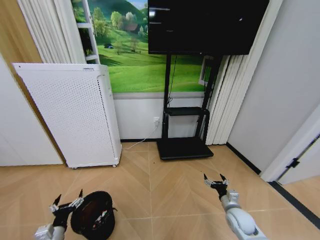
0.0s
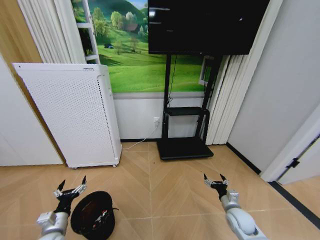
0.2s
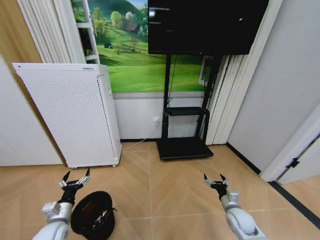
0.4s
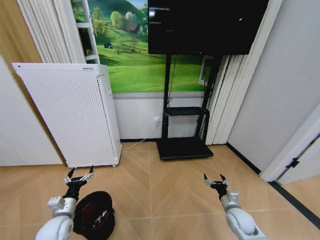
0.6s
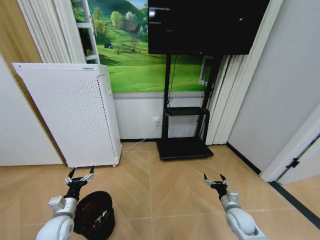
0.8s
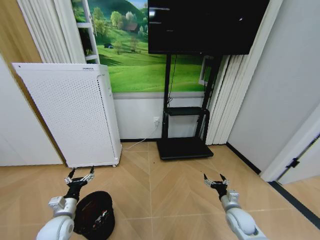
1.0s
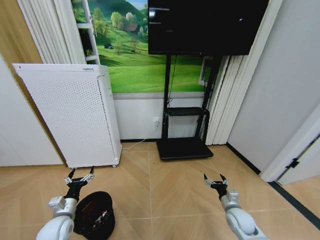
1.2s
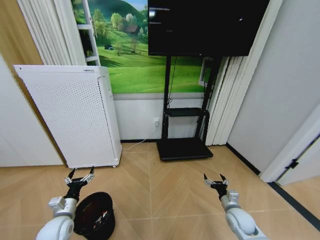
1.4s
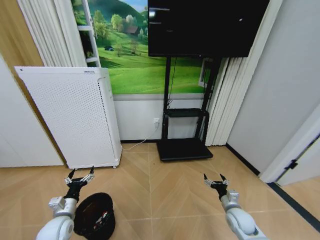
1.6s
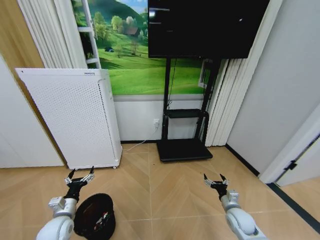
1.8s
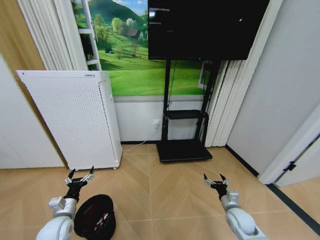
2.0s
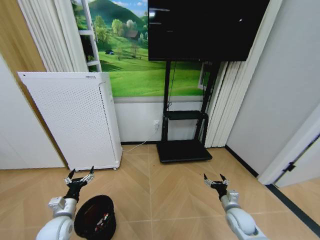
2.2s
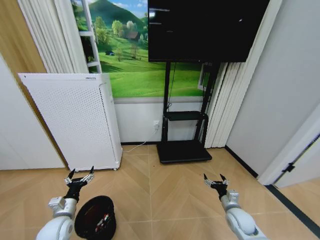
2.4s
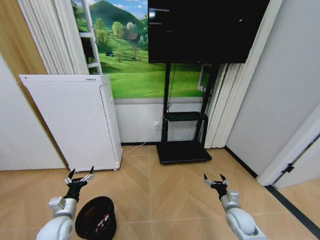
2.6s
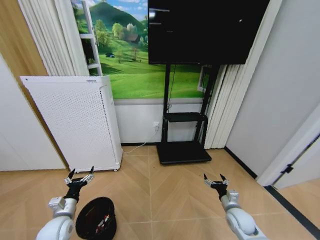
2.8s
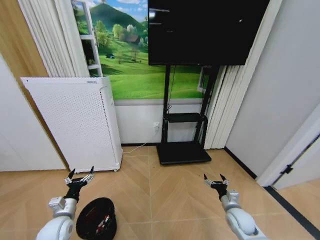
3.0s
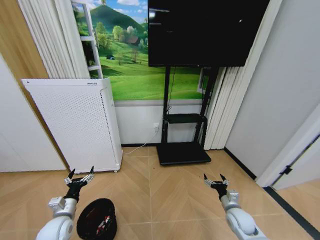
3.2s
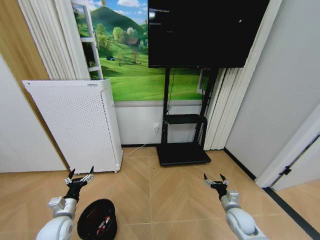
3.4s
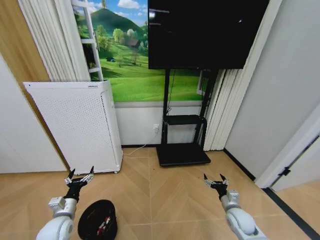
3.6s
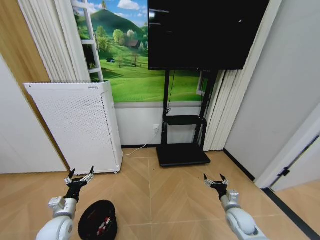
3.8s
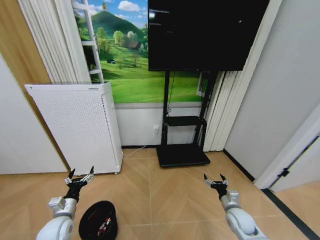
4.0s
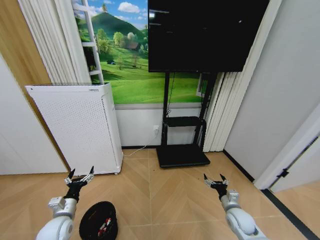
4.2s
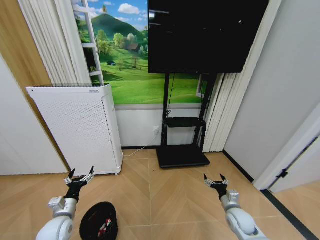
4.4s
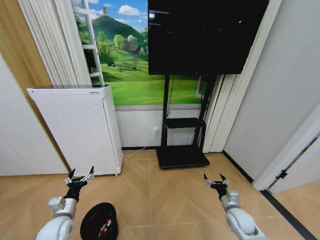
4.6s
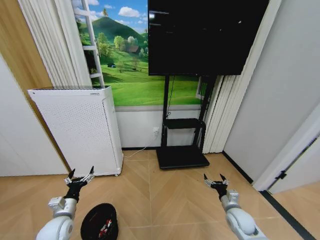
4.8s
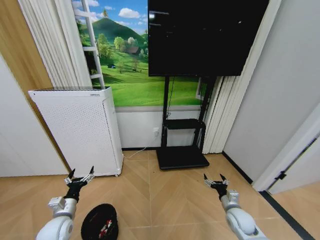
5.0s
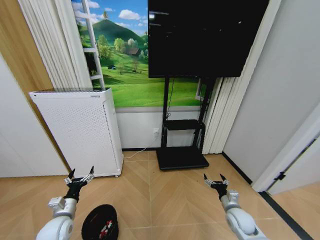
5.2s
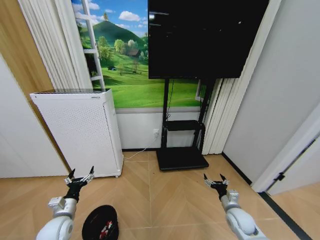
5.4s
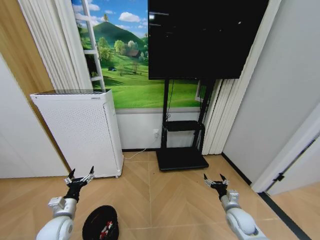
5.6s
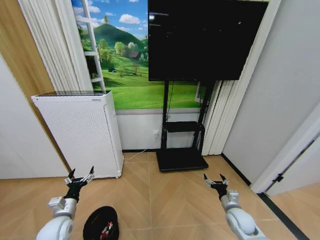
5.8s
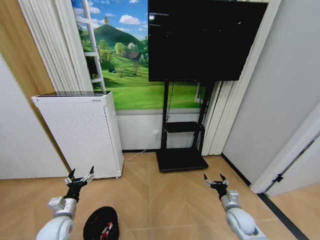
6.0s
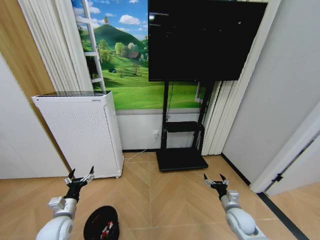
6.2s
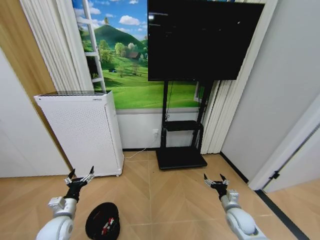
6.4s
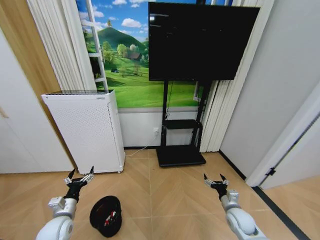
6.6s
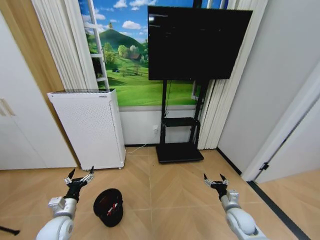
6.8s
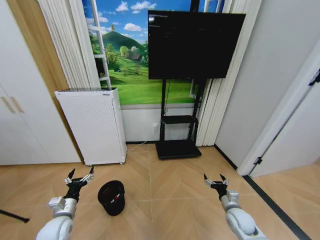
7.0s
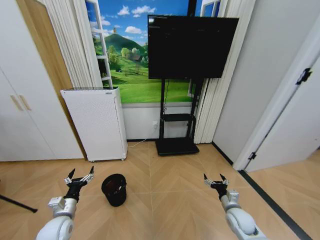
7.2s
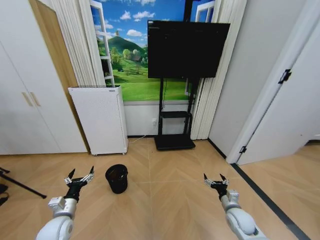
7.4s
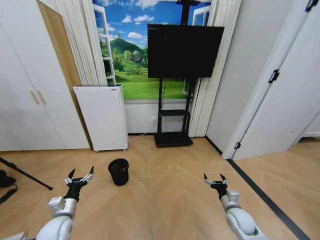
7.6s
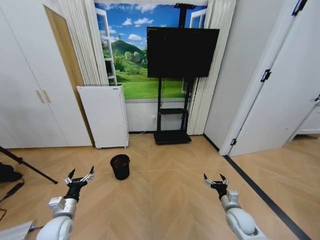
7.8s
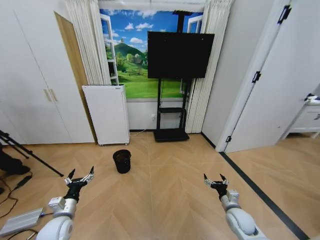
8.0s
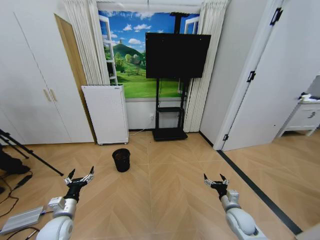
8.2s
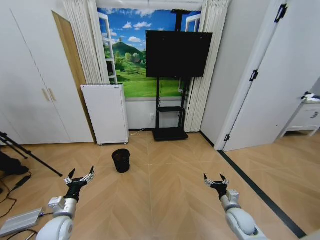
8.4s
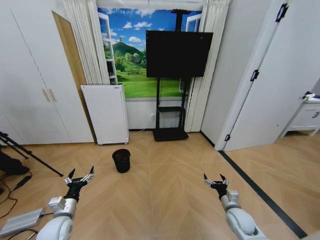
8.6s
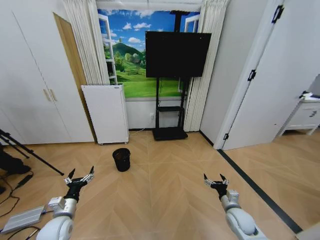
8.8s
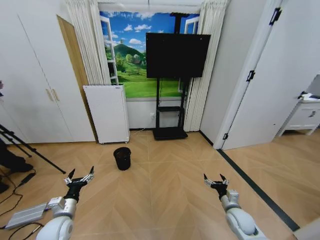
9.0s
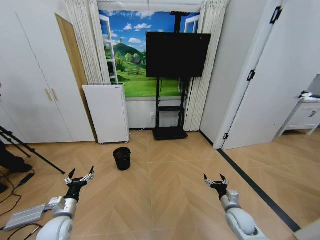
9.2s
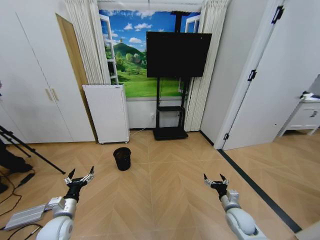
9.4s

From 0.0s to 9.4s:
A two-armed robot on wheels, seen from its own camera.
Task of the whole recording: Pick up the trash bin and place the garbage on the floor into it.
From 0.0s to 1.6s: The left gripper is displaced forward by about 10 cm.
From 1.6s to 6.2s: Both grippers stay put.
From 7.8s to 9.4s: Both grippers stay put.

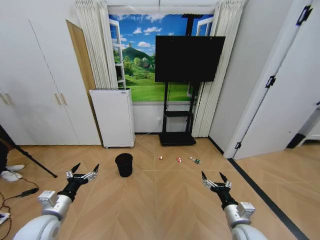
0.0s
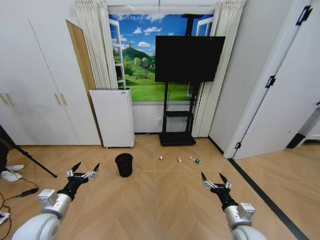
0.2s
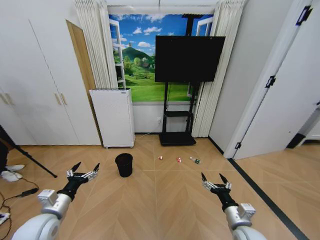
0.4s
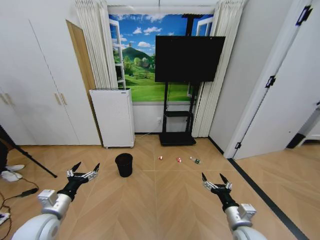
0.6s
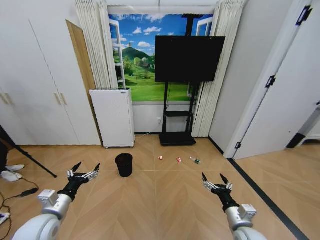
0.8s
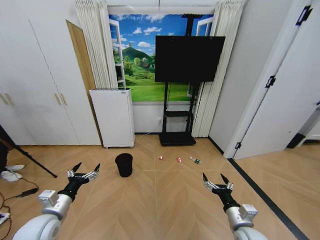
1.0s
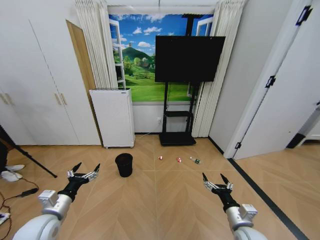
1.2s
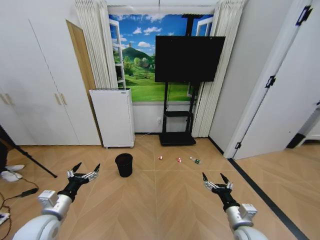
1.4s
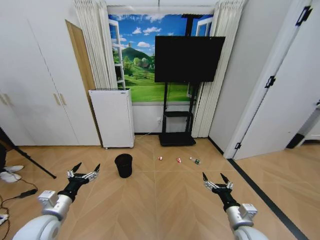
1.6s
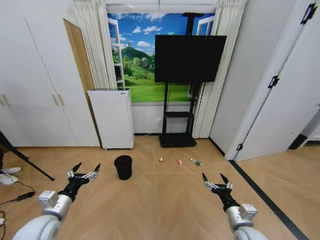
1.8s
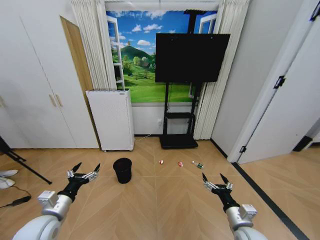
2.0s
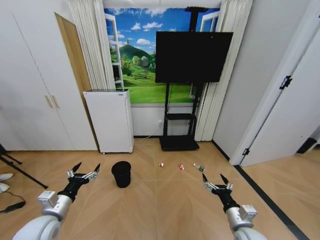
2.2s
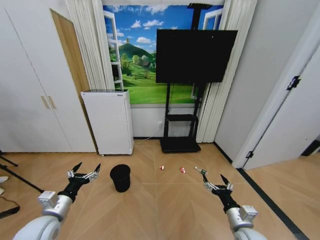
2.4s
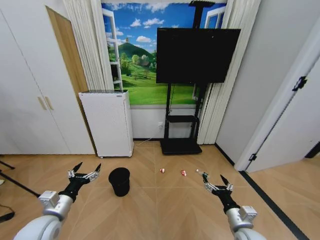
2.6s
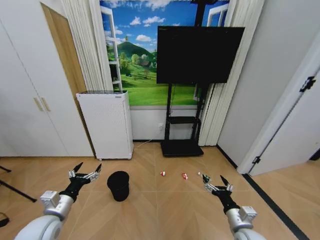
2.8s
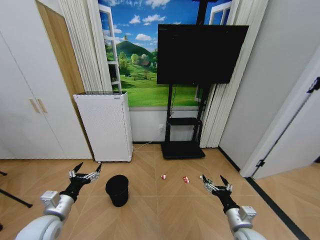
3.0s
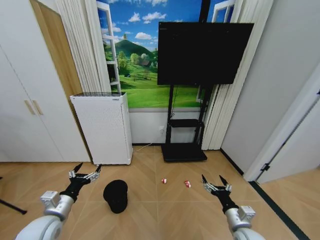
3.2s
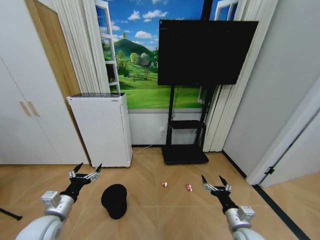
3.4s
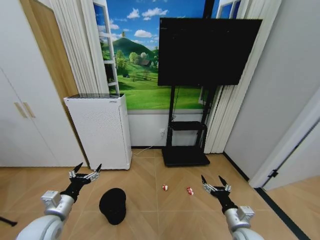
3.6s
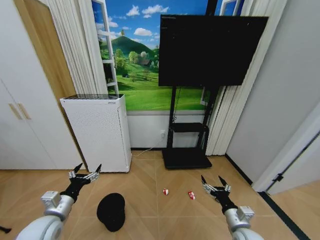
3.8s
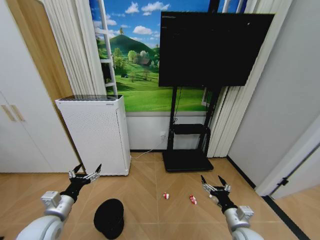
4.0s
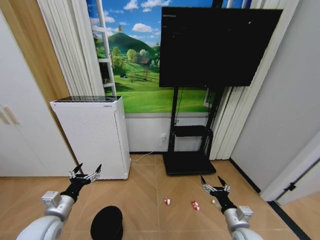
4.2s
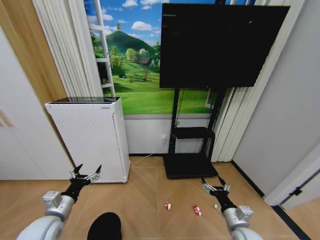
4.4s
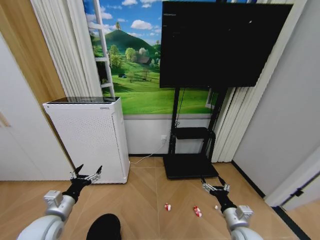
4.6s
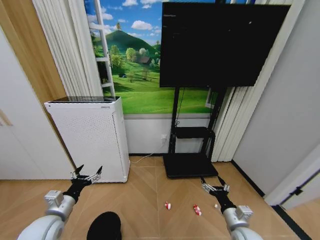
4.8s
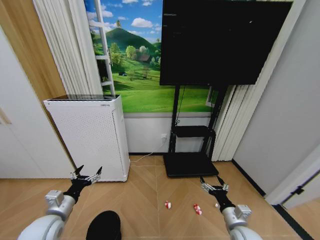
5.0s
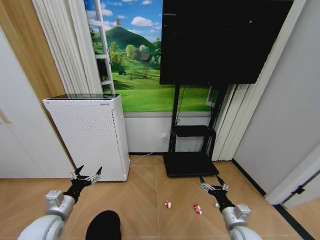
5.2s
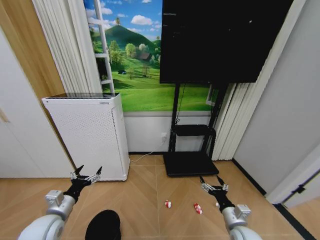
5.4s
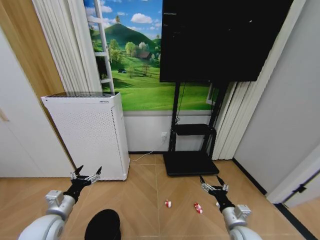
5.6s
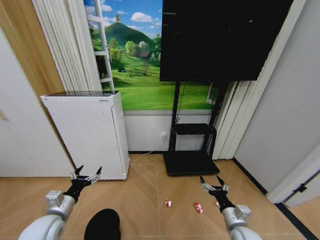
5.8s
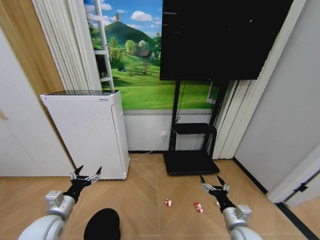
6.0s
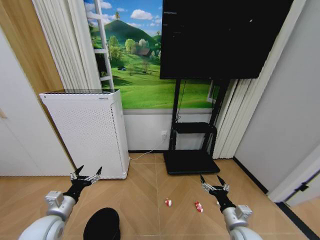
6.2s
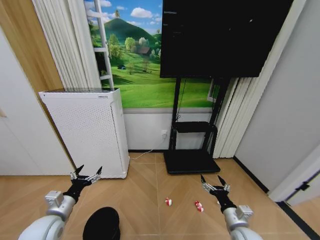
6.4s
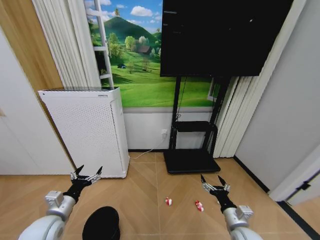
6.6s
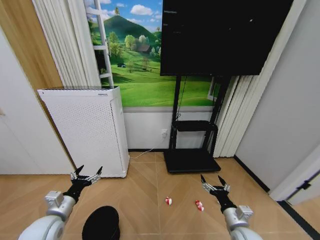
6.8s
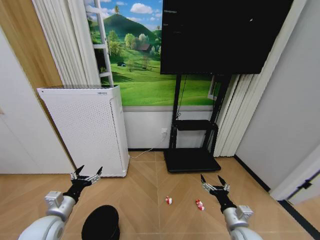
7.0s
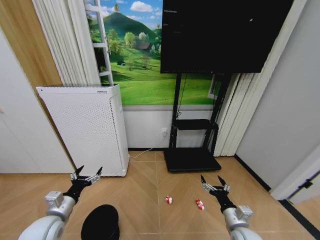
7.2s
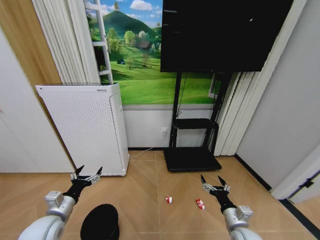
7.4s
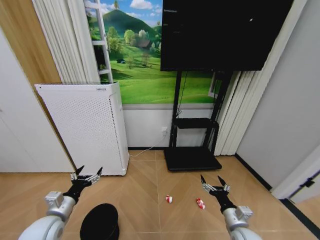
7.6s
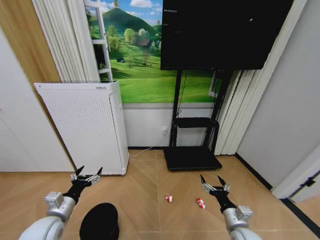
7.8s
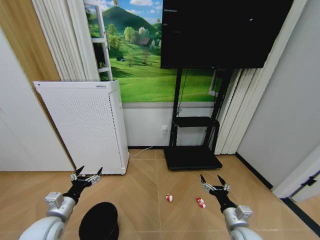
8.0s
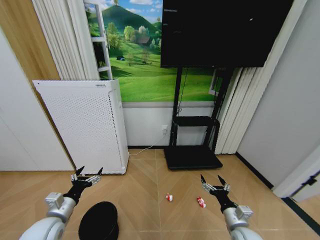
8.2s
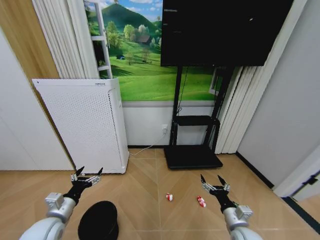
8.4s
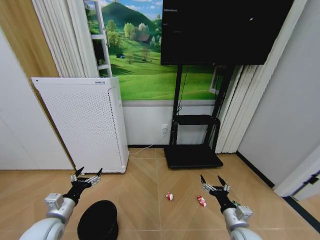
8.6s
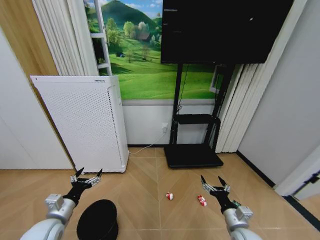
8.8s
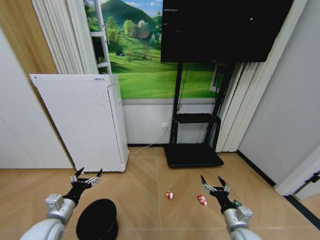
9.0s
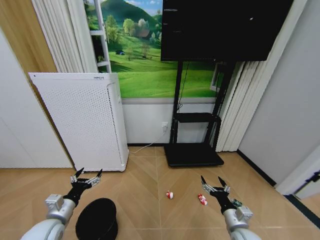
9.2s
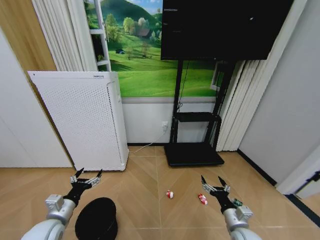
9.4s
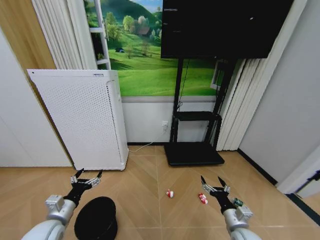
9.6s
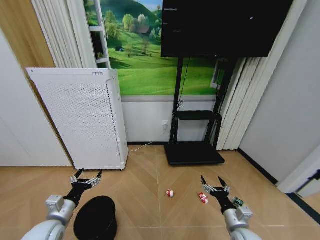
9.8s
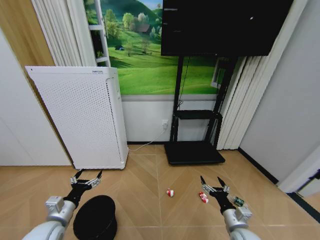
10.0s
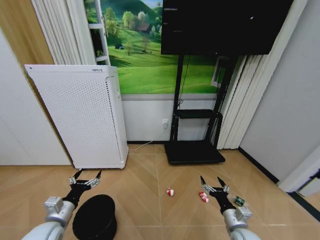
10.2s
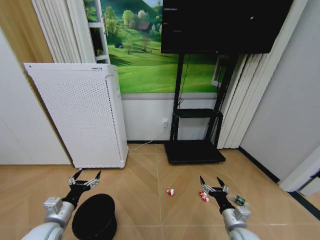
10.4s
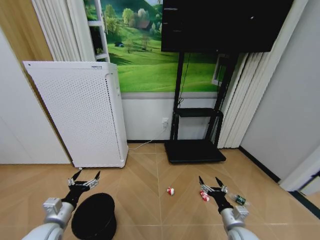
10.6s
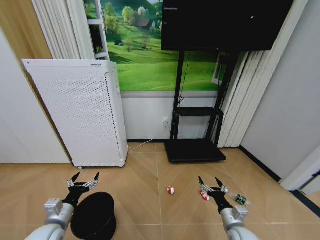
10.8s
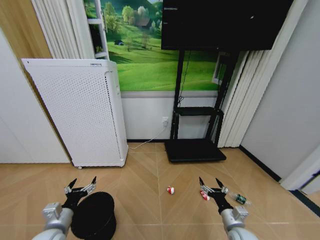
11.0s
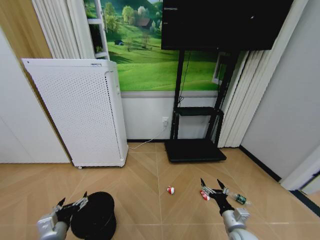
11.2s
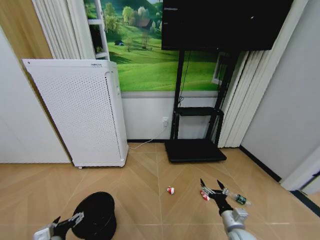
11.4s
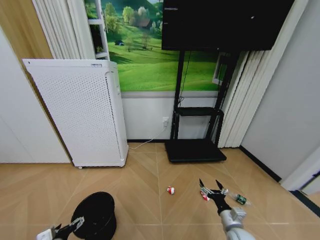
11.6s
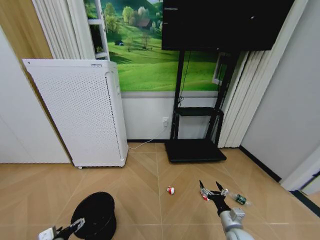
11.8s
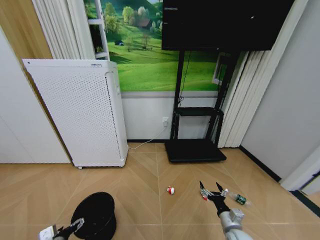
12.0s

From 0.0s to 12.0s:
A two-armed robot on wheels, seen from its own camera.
Task of the whole recording: Pick up the trash bin and place the garbage on the floor into it.
From 4.4s to 7.6s: Both grippers stay put.
From 7.6s to 9.0s: Both grippers stay put.
From 9.0s to 10.4s: The two grippers keep their place.
From 10.4s to 12.0s: The left gripper moves downward, approximately 10 cm.

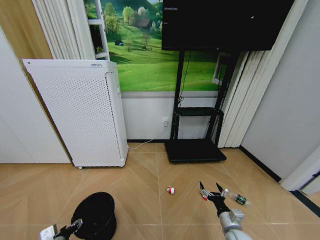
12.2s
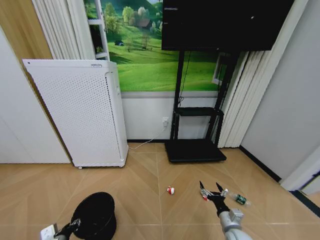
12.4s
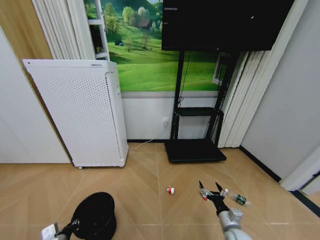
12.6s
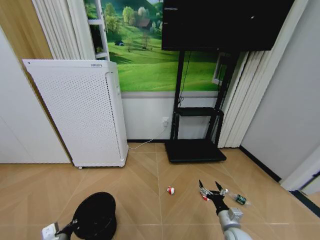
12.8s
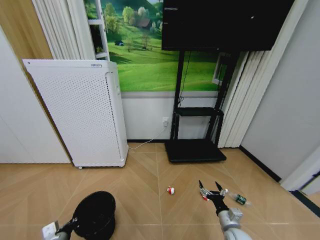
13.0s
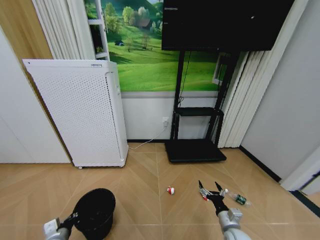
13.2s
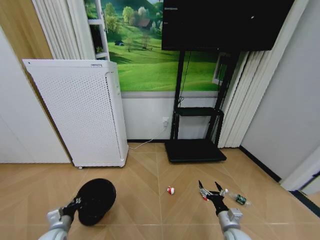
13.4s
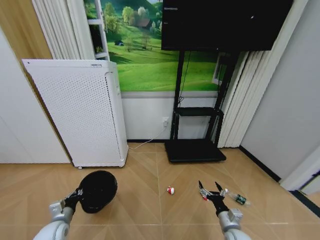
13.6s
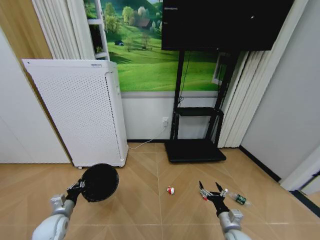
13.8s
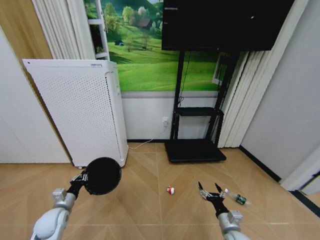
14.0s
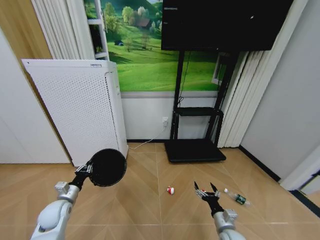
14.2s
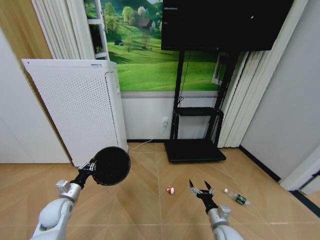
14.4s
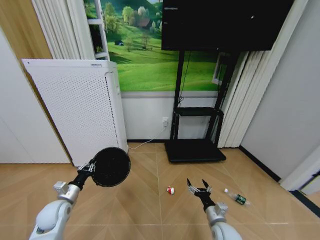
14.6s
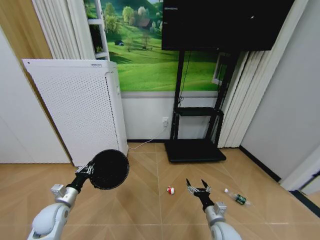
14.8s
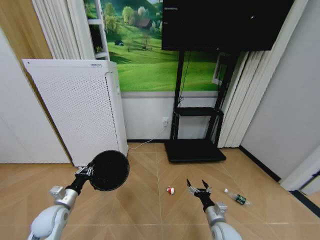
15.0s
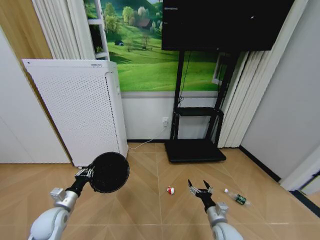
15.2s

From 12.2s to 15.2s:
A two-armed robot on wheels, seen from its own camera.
Task of the whole recording: Pick up the trash bin and place the garbage on the floor into it.
From 12.2s to 13.8s: The left gripper goes approximately 10 cm forward, and closes.
